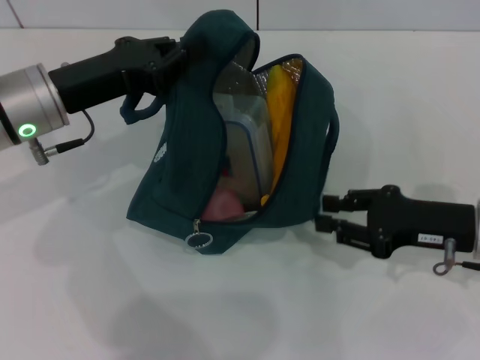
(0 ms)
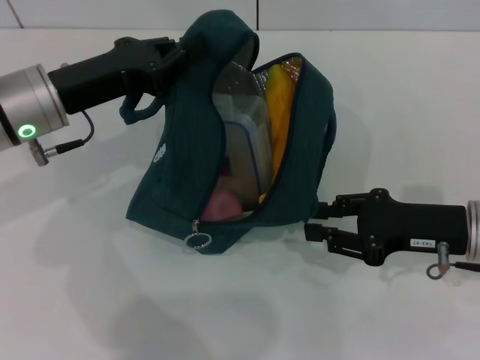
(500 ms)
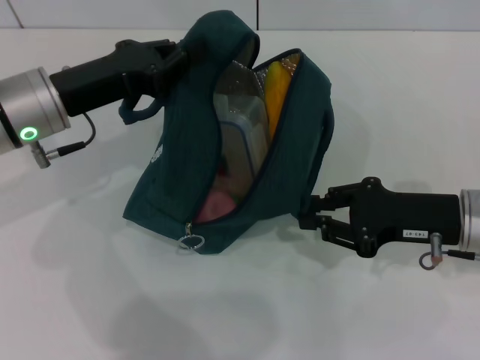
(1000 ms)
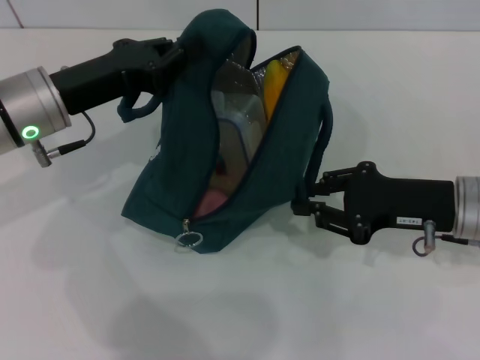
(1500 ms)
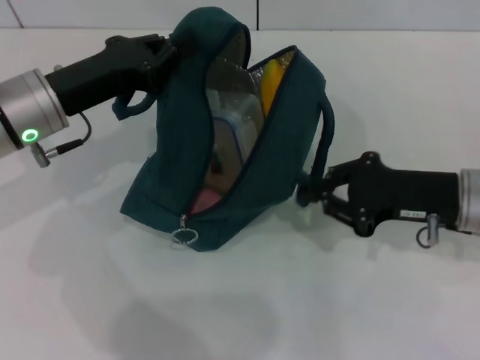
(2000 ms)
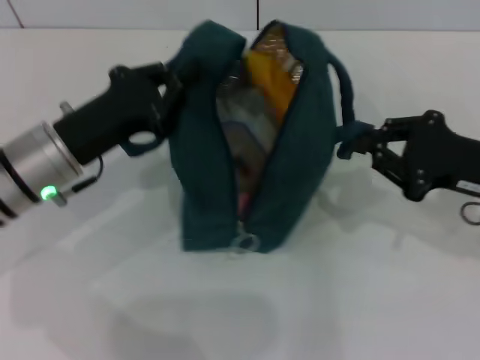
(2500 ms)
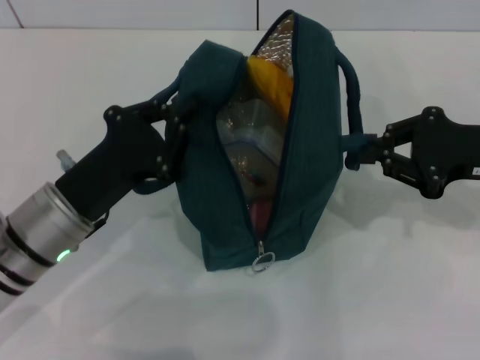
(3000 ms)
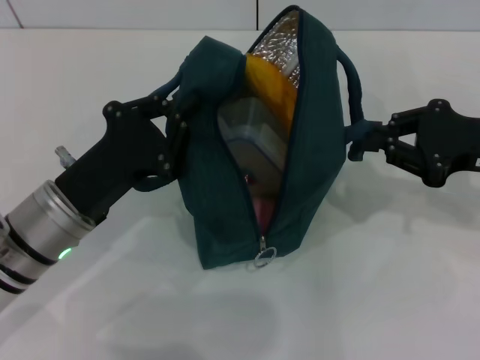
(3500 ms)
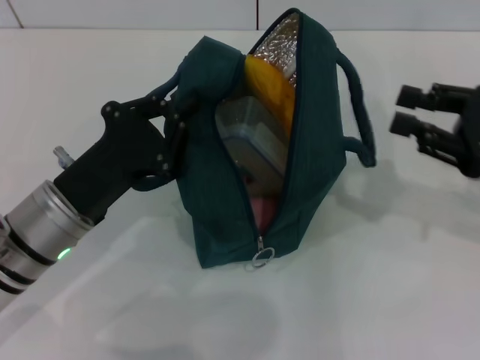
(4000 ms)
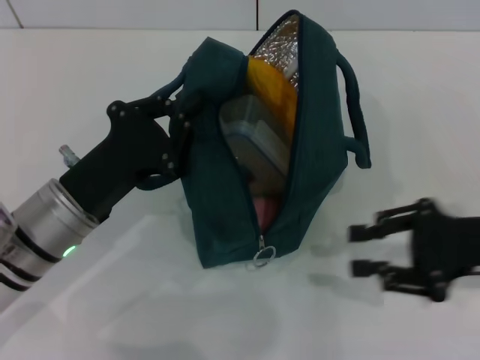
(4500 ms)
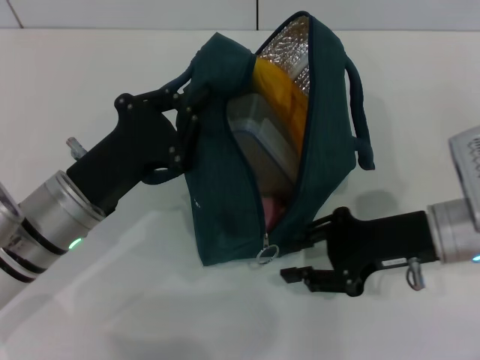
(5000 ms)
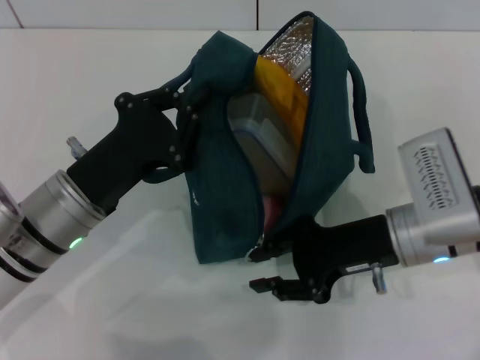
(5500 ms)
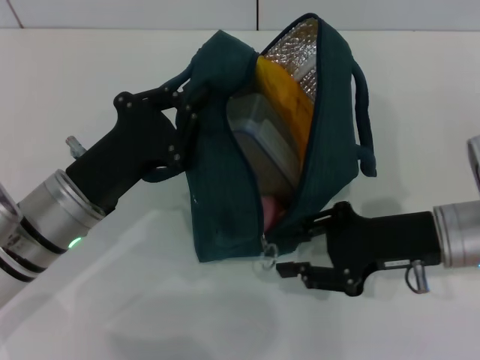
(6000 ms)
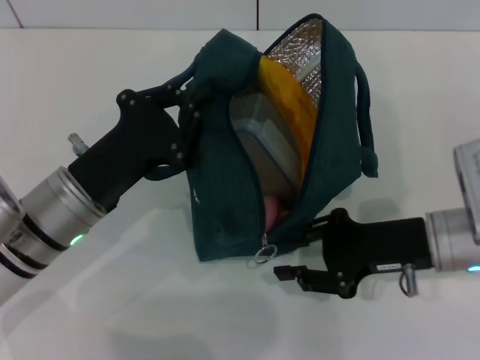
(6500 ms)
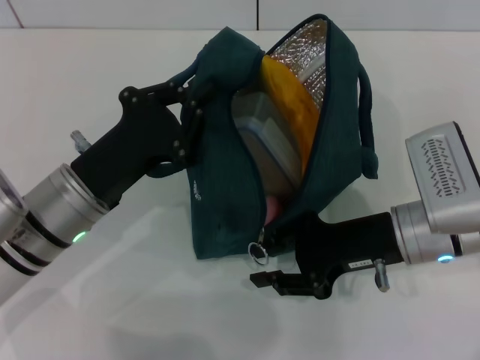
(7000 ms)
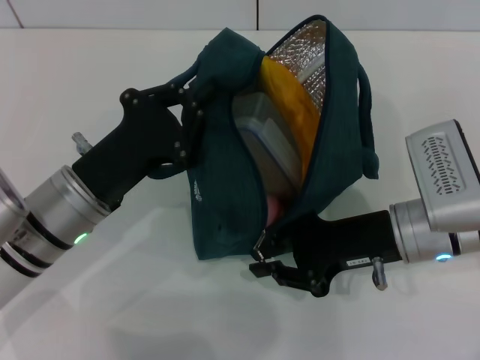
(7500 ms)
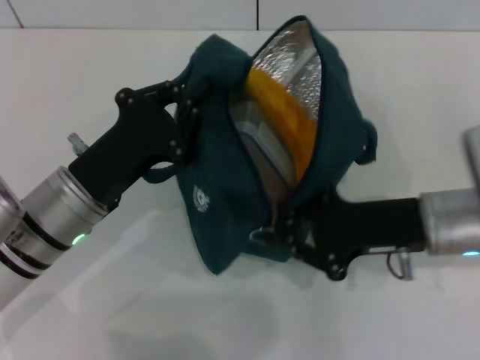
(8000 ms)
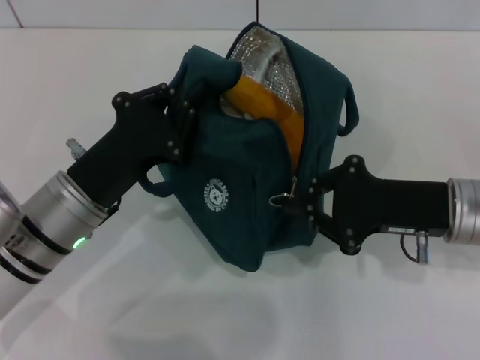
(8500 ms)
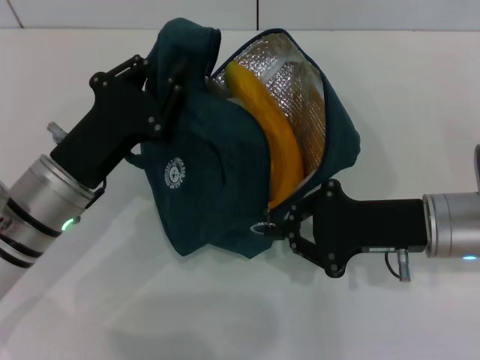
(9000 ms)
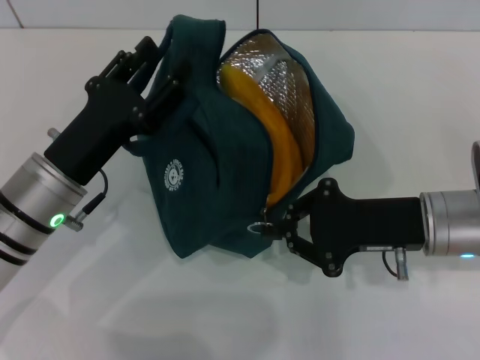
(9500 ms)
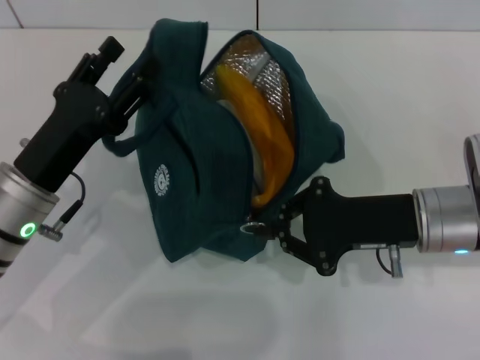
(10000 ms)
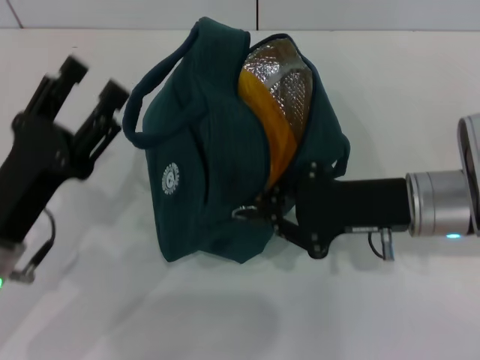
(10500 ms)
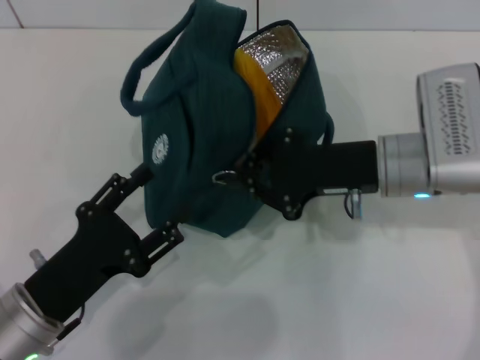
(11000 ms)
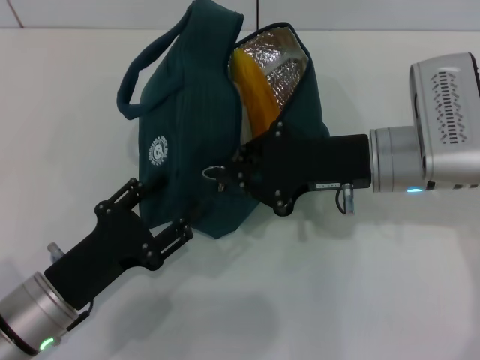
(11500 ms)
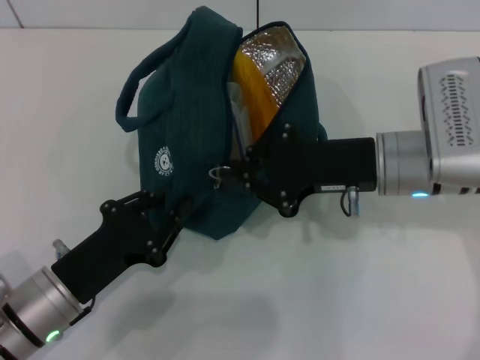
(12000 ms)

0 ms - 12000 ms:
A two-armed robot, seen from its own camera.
Step, 0 ms - 3500 ms: Hold the lunch bag with your right hand.
0 ms - 2000 ms: The right gripper closes.
2000 ms - 4000 ms: The right gripper heads to the right, covering about 10 cm, while the left gripper moves backward and downward, roughly 10 cm.
4000 ms - 6000 ms: The right gripper goes approximately 10 cm to the left and downward.
6000 ms - 8000 ms: The right gripper closes its fingers.
8000 ms - 10000 ms: The left gripper opens.
10000 ms - 12000 ms: The left gripper heads backward and downward, covering roughly 10 cm, and closes; the right gripper ends up roughly 5 cm from where it was.

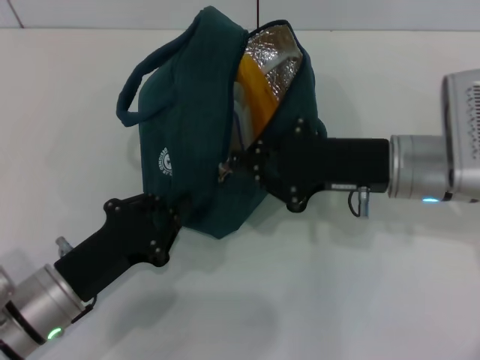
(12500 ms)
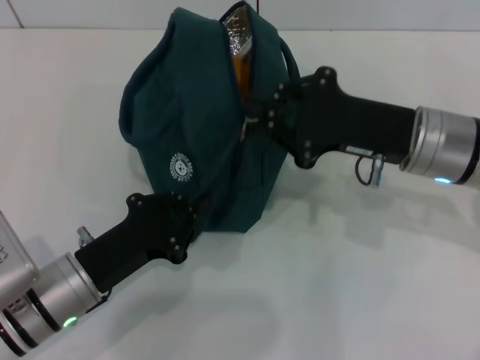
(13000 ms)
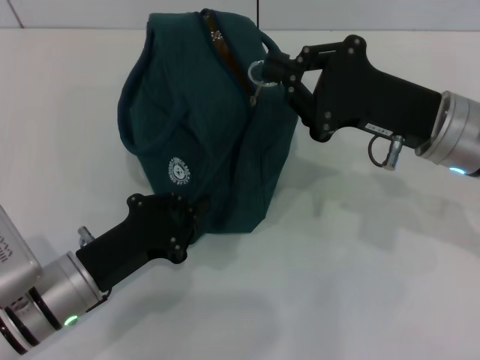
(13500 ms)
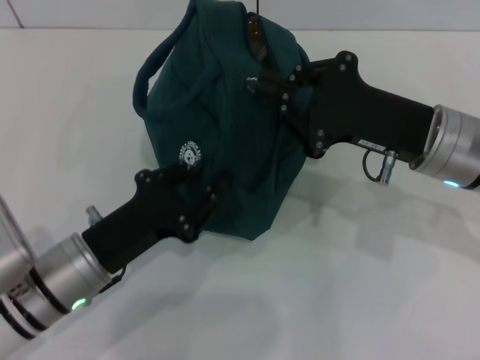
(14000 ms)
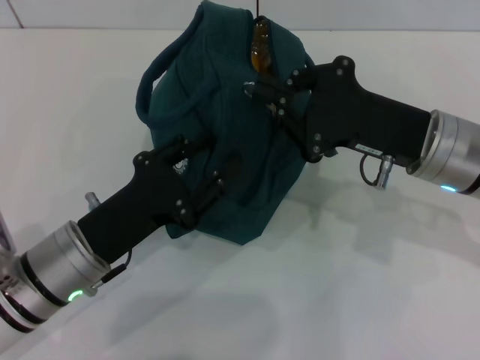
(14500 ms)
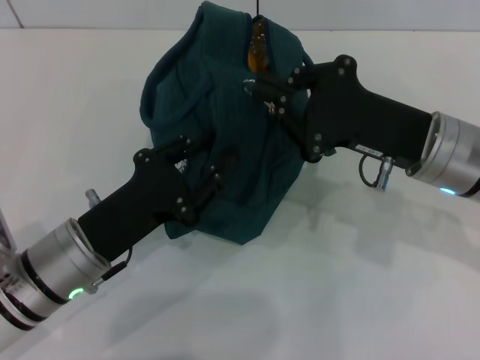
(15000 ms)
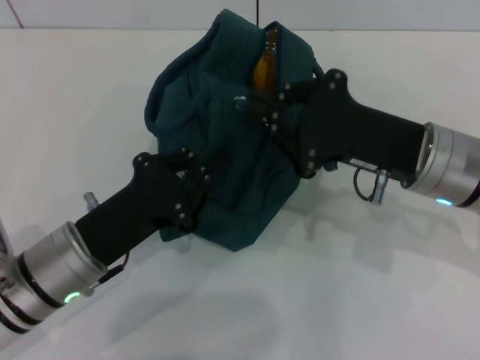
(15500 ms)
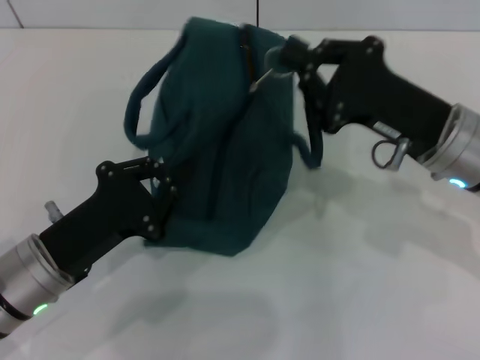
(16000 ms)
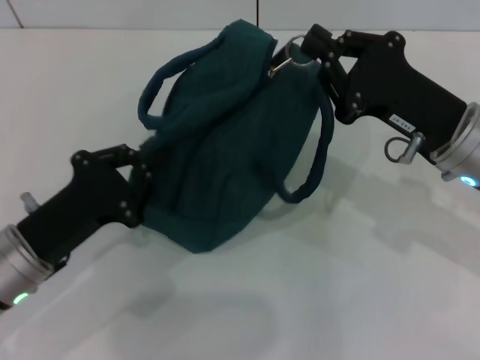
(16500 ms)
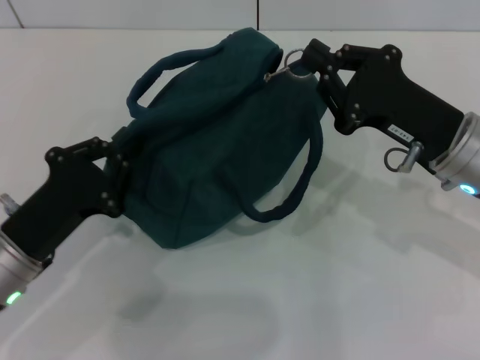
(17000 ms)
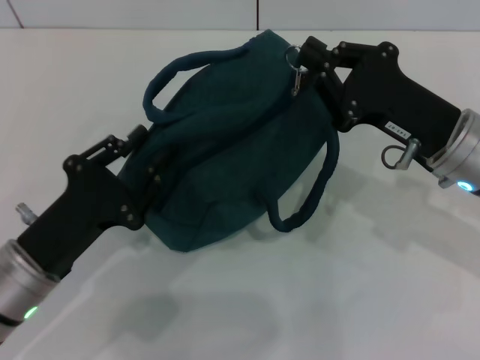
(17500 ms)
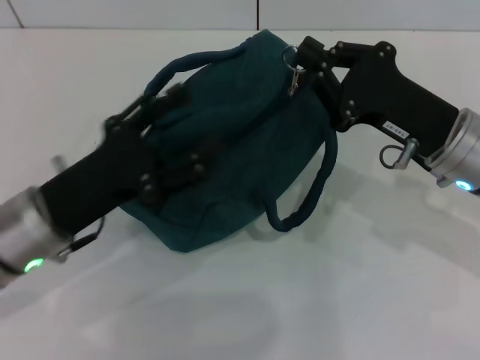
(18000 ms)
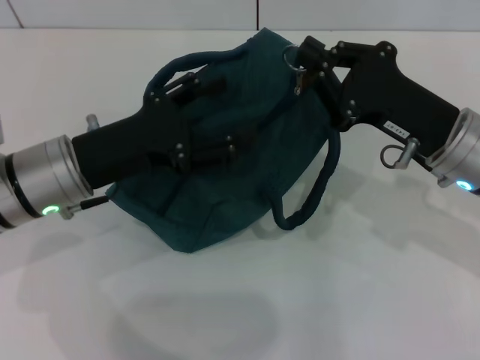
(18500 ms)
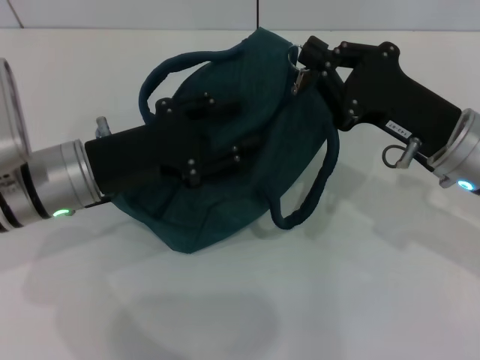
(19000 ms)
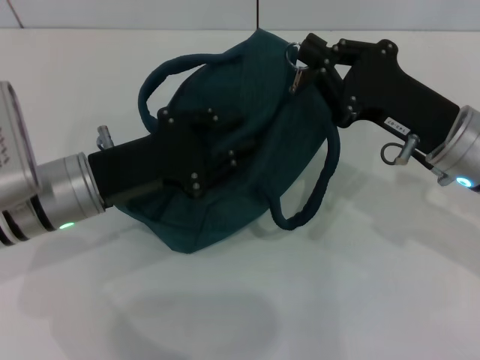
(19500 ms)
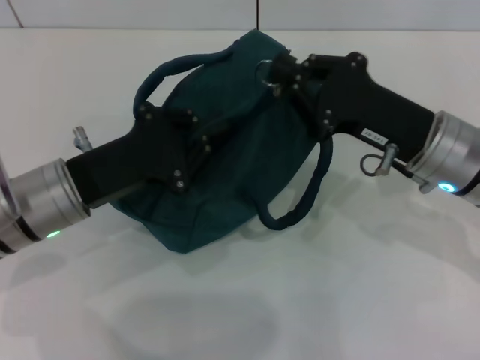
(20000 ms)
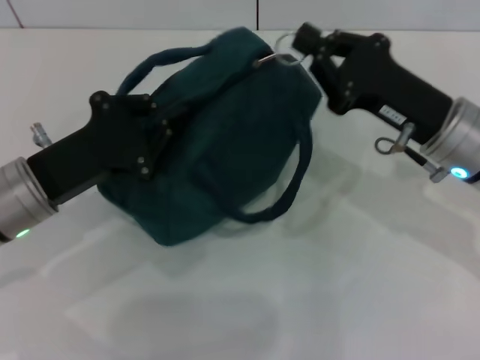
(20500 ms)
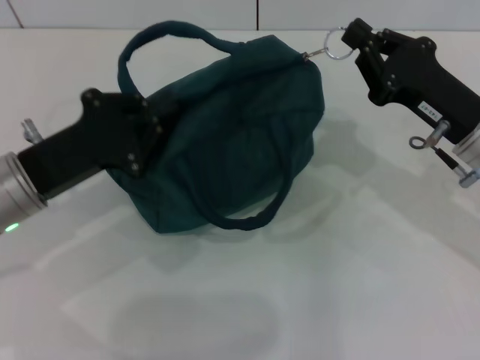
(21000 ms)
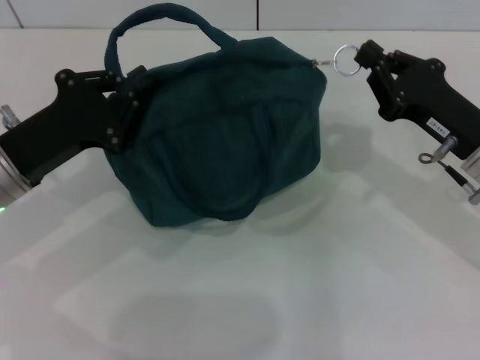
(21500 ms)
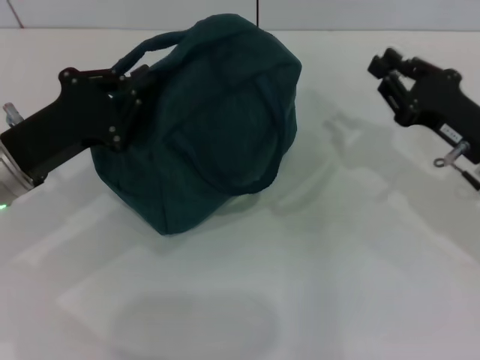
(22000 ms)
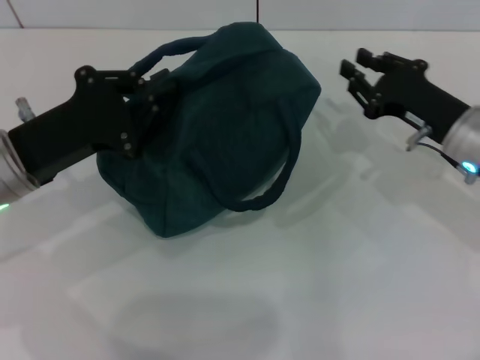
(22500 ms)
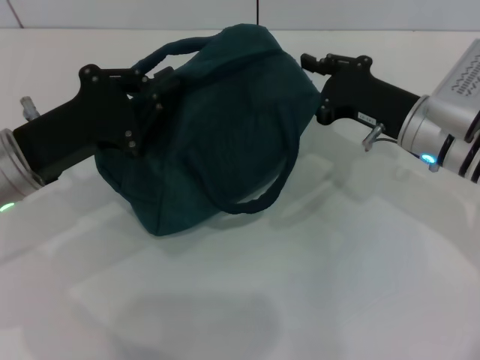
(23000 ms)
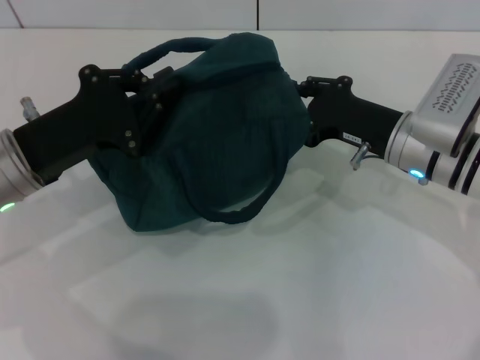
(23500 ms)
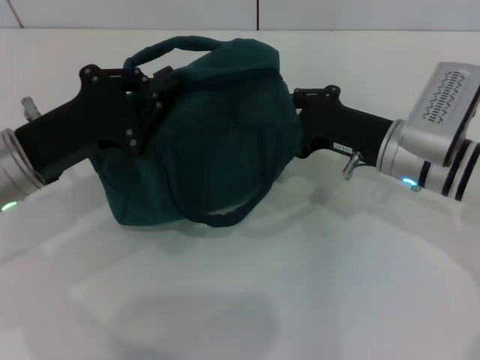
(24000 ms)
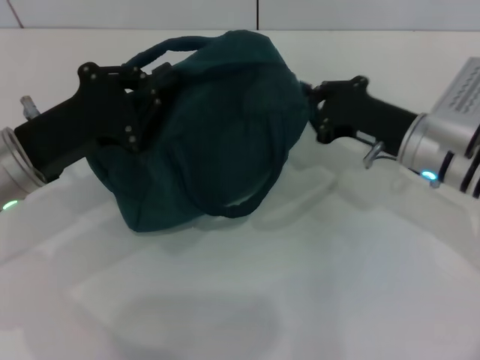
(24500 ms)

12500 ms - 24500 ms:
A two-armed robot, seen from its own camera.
12500 ms - 14500 ms: The left gripper changes place by roughly 5 cm, and opens its fingers.
14500 ms - 16500 ms: The left gripper closes its fingers.
16500 ms - 18500 ms: The left gripper moves forward and upward, roughly 10 cm, and opens up.
18500 ms - 20500 ms: The left gripper closes up.
20500 ms - 22500 ms: The right gripper moves some 5 cm.

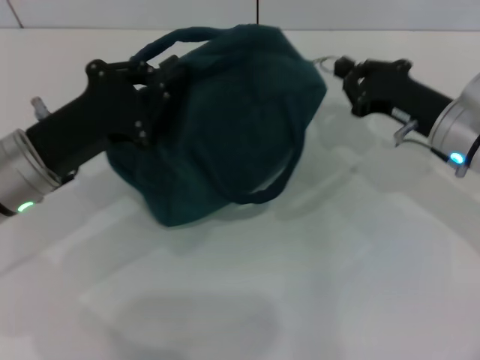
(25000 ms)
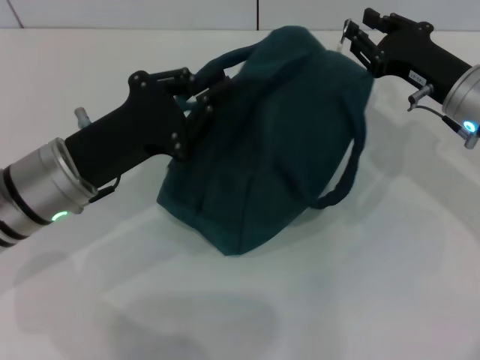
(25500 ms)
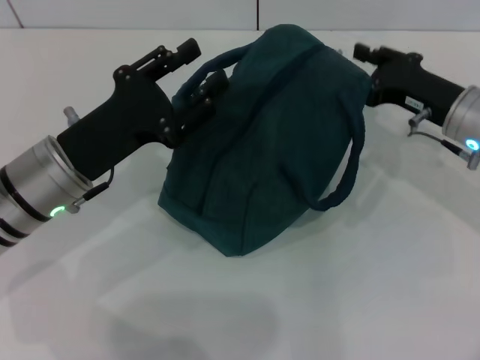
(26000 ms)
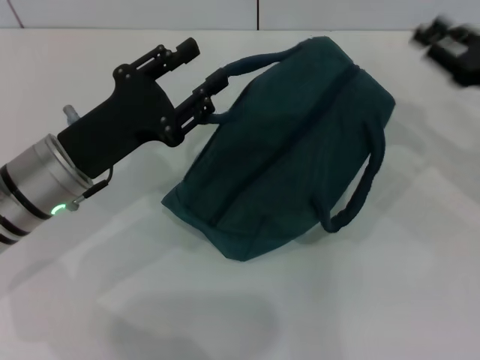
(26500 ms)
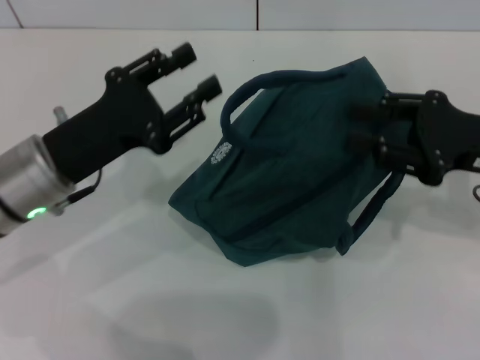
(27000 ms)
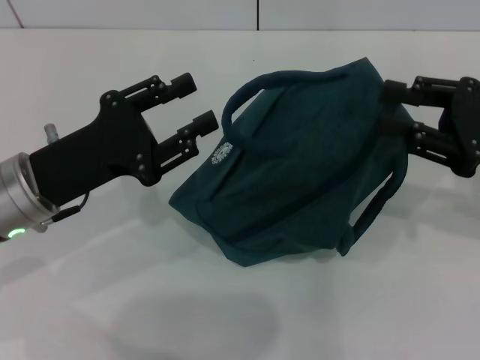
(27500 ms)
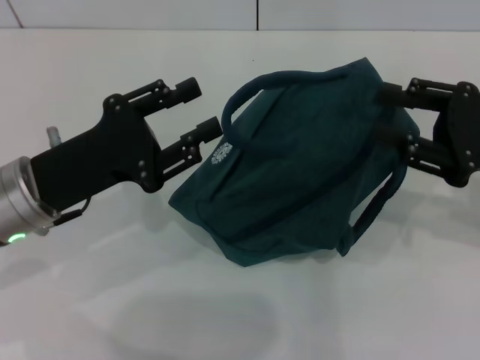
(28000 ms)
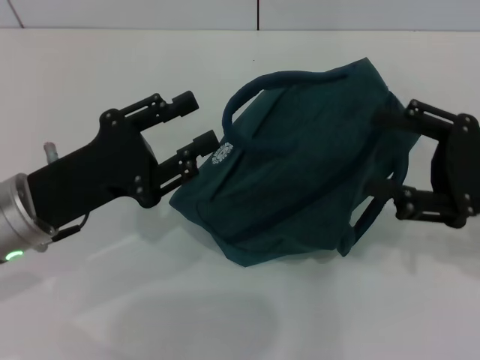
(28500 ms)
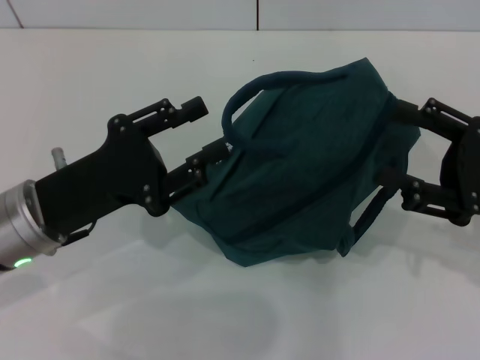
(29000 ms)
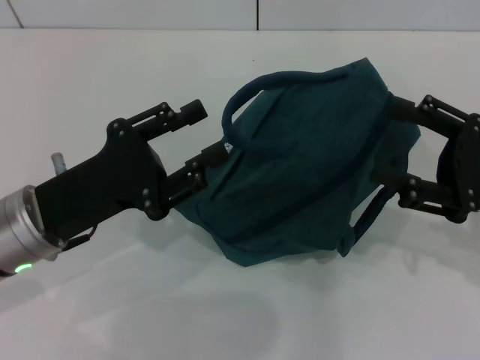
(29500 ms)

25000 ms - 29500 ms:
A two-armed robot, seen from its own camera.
25000 ms - 27000 ms: The right gripper moves upward, backward and to the right, roughly 10 cm, and opens its fingers. The left gripper opens.
27000 ms - 29500 ms: The right gripper shifts by roughly 5 cm, and opens.
